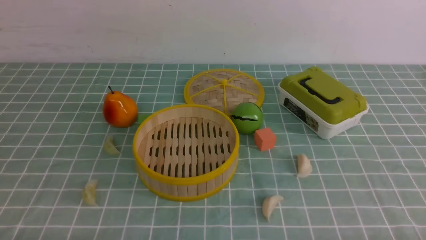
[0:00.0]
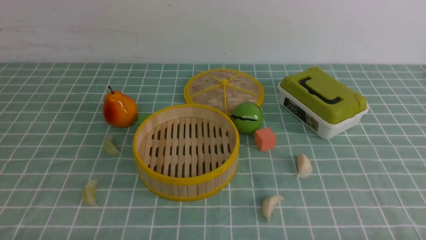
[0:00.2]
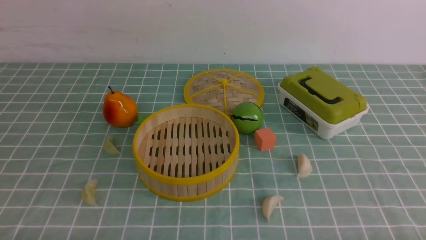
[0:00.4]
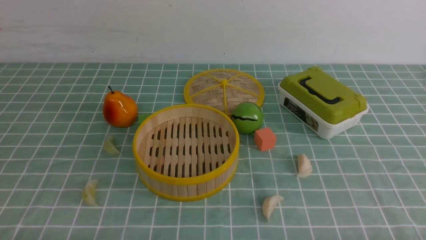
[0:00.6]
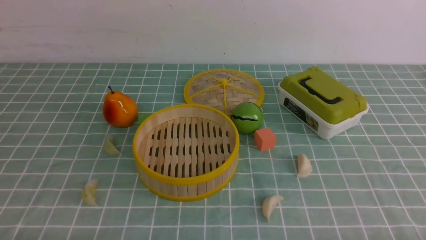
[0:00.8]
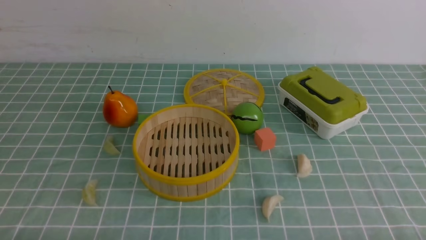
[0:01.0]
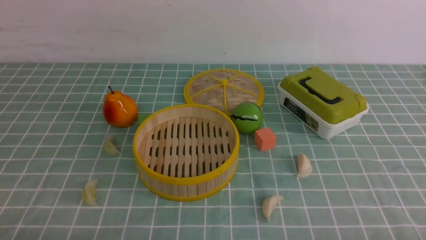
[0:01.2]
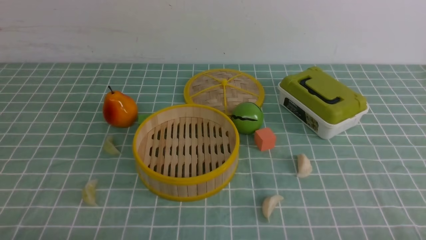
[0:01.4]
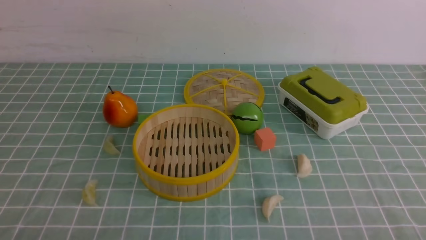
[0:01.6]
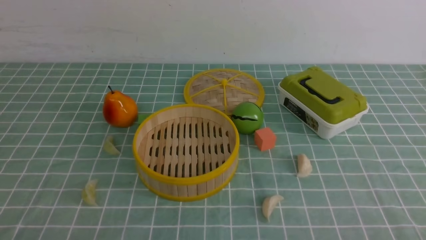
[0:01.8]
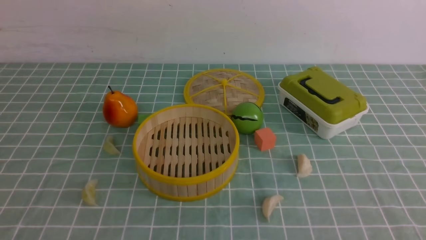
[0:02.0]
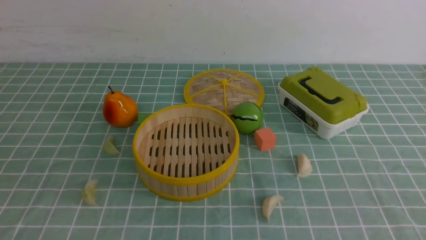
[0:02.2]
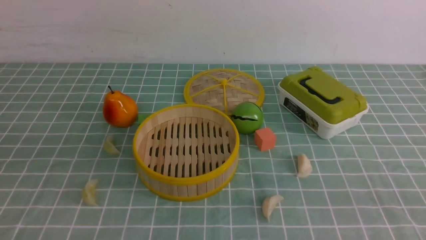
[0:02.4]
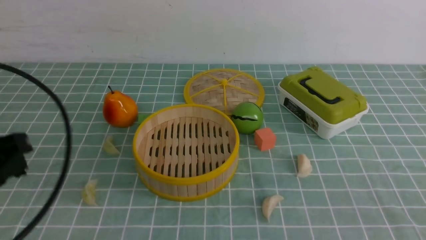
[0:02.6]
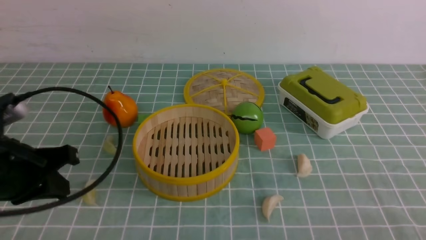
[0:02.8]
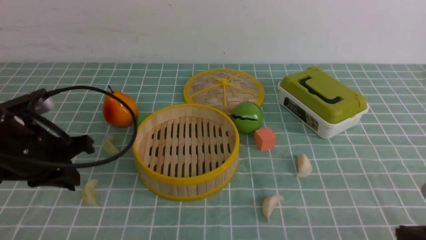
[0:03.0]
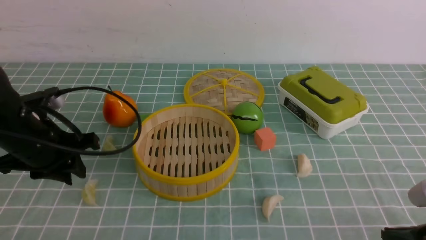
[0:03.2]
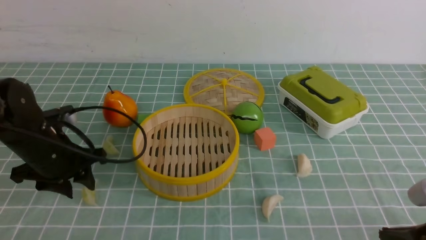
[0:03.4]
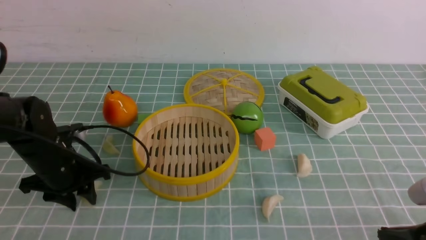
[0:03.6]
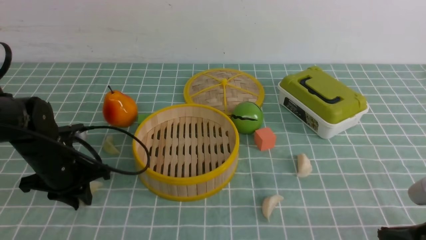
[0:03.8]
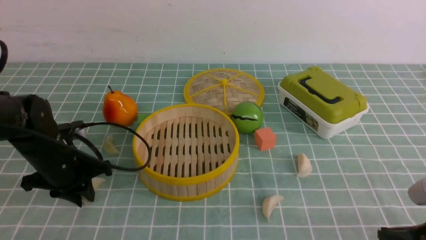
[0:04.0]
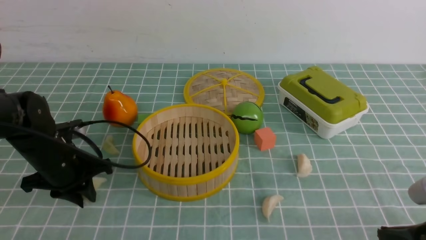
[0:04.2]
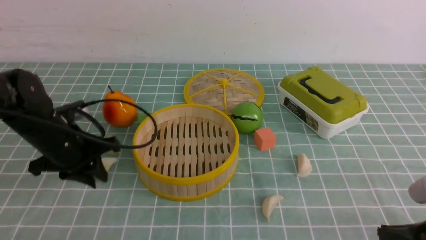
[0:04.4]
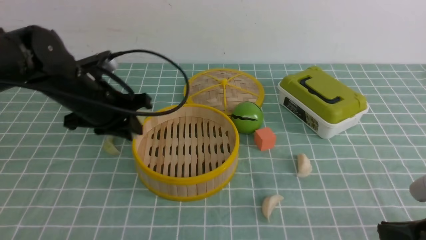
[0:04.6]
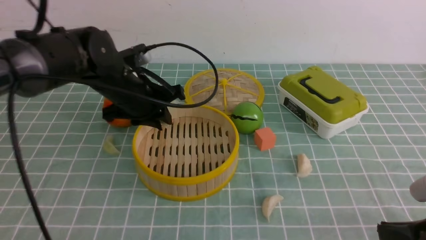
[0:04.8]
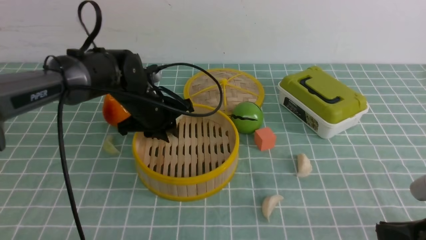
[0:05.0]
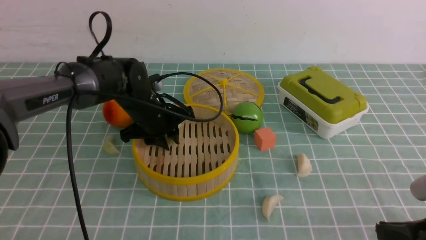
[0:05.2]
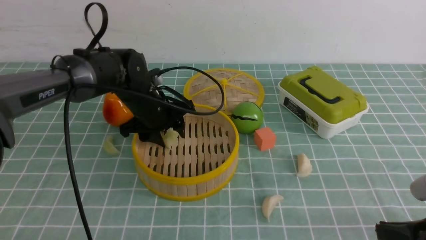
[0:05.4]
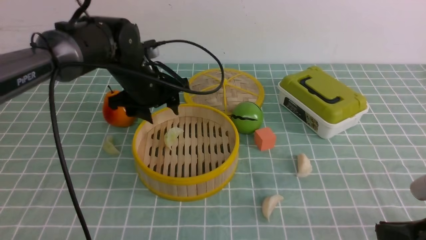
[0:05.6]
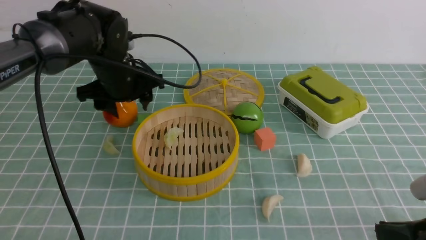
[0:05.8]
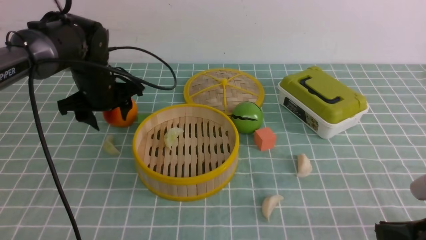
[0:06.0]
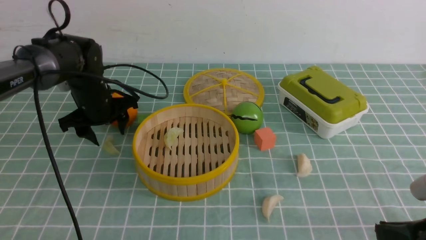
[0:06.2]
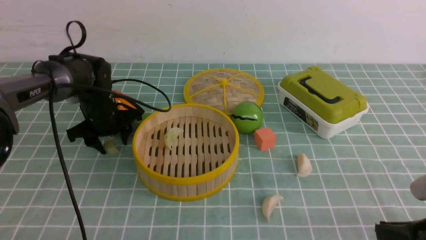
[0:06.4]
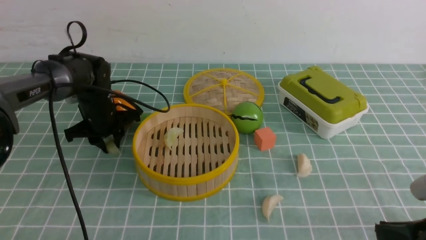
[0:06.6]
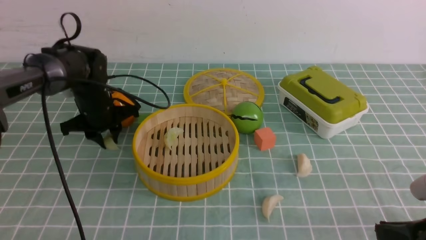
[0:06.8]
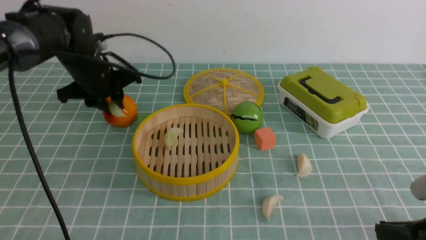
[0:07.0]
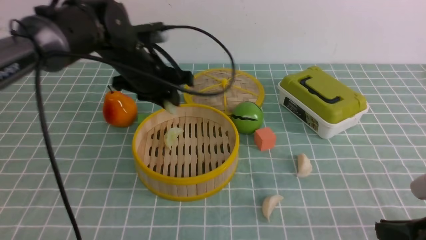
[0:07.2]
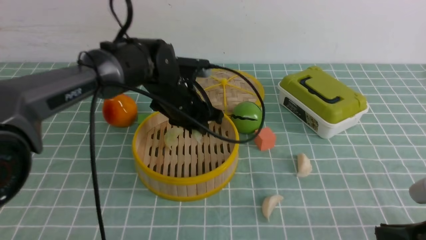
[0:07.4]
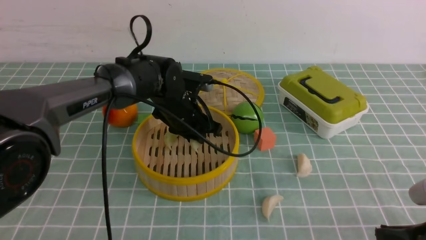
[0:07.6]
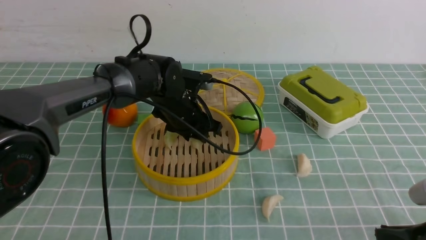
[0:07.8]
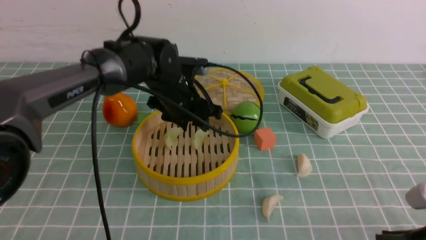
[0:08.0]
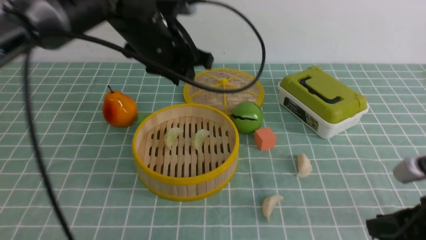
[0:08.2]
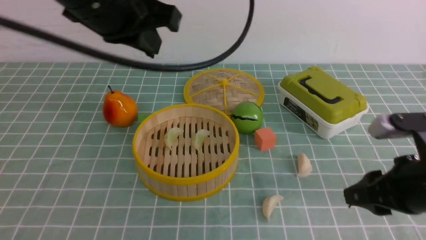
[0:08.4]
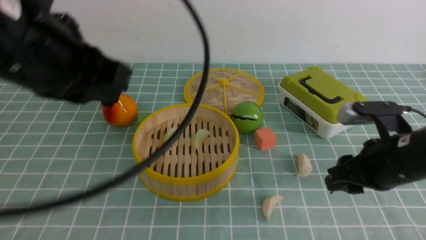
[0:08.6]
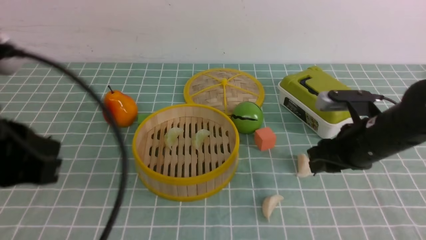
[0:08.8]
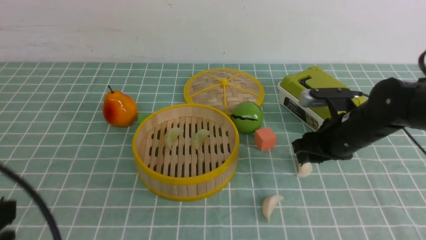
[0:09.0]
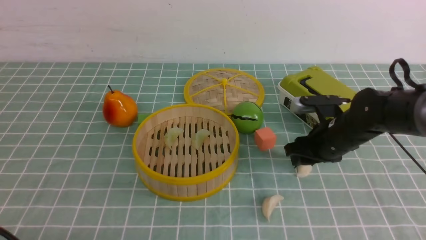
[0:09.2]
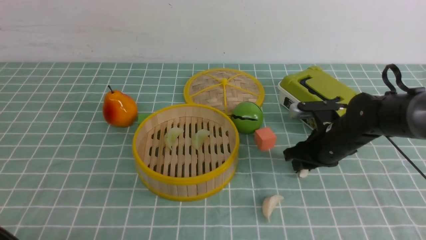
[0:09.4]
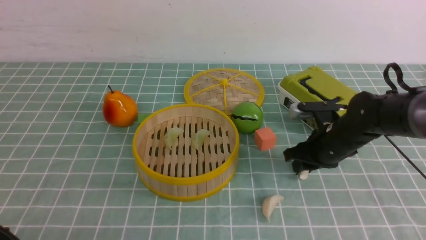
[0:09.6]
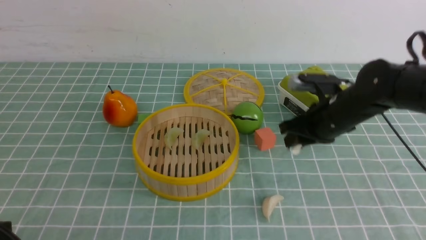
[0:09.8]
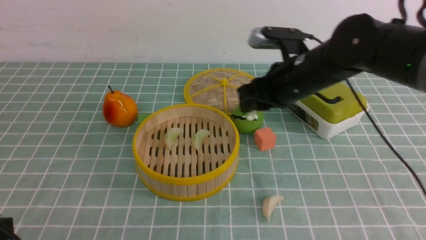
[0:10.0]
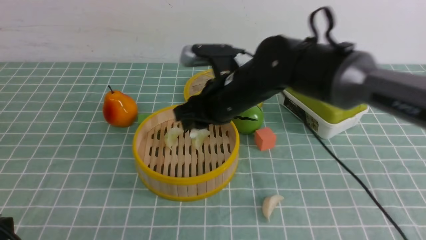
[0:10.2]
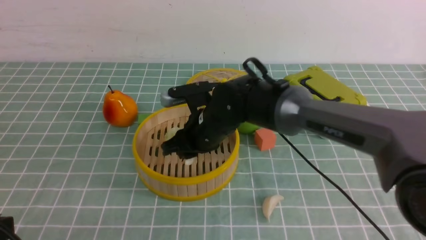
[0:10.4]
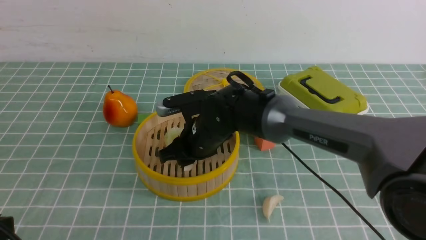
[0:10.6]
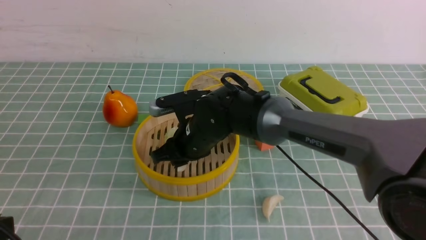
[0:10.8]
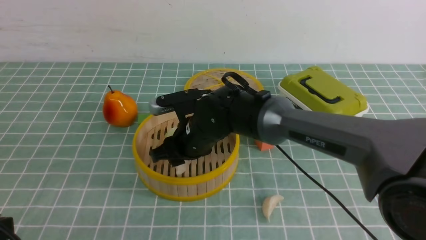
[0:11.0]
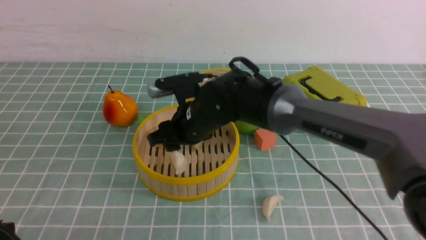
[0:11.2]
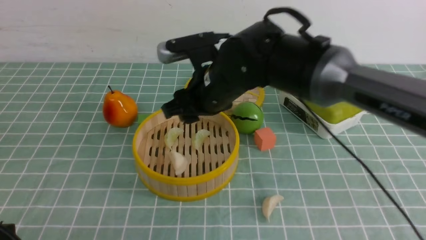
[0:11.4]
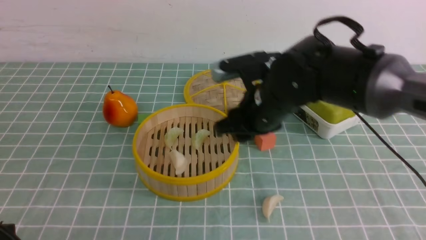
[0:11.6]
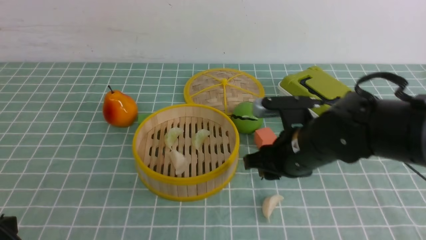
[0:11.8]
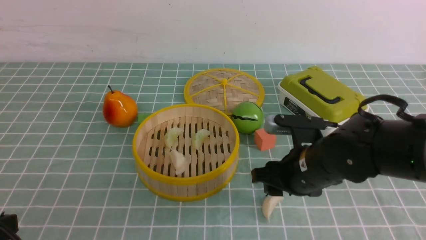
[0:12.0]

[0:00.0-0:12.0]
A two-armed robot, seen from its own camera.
Task of the whole recording: put the dumplings into the steamer on the table with the blue tablecloth.
Step, 0:00.0 to 0:04.2: use the left arm to grab a dumpling.
Step, 0:04.6 to 0:05.6: use the left arm to put the dumpling into the steamer.
Step, 0:05.8 to 0:07.0: use the left arm to grab a dumpling.
Step, 0:07.2 to 0:08.0: use the left arm to put the dumpling into the steamer.
Step, 0:08.4 to 0:09.8: use the right arm to grab a dumpling.
Step, 0:10.2 to 0:11.2: use the right arm to put the dumpling into the steamer.
0:01.6 to 0:03.0: The left gripper shifts some 20 cm forward.
0:03.0 to 0:04.4: The left gripper is displaced forward by some 10 cm.
0:04.4 to 0:06.0: The left gripper goes about 10 cm forward, goes to the right and returns, roughly 10 cm each way, and opens up.
0:06.0 to 0:07.6: The left gripper is displaced to the right by about 15 cm, and closes.
0:07.6 to 0:09.0: The left gripper shifts roughly 40 cm backward and to the left, and closes its fingers. Meanwhile the right gripper moves forward, approximately 20 cm, and opens its fingers.
0:09.0 to 0:10.4: The right gripper goes about 20 cm to the left.
0:10.4 to 0:12.0: The right gripper heads to the right and backward, covering approximately 15 cm.

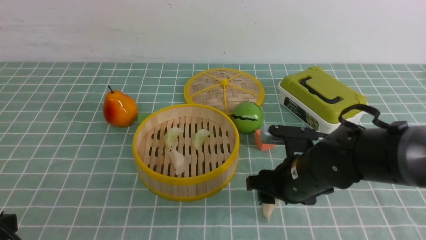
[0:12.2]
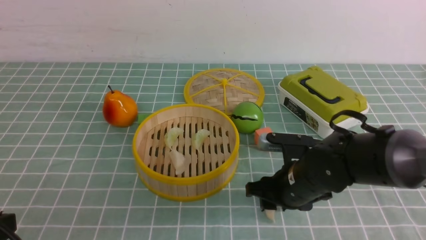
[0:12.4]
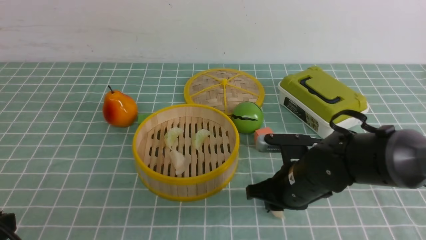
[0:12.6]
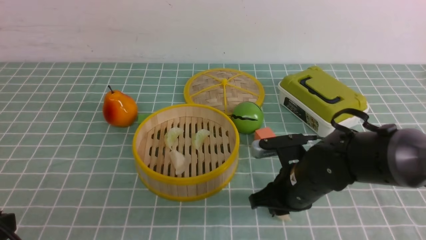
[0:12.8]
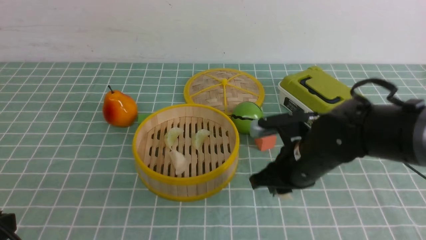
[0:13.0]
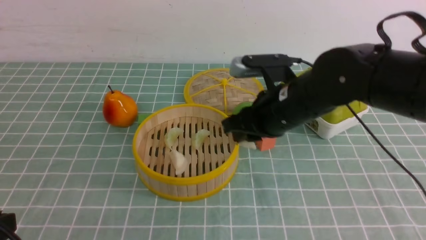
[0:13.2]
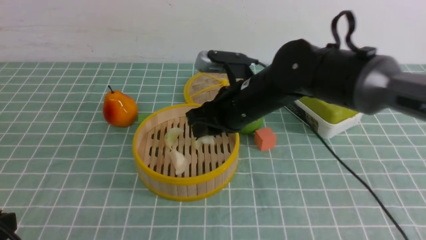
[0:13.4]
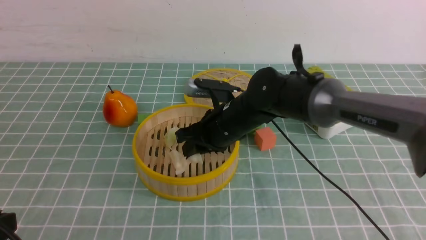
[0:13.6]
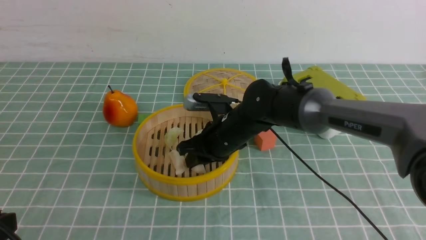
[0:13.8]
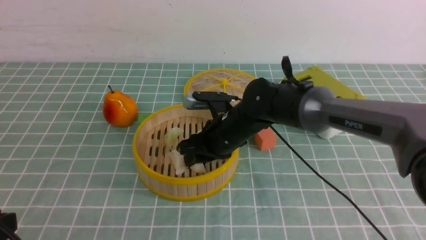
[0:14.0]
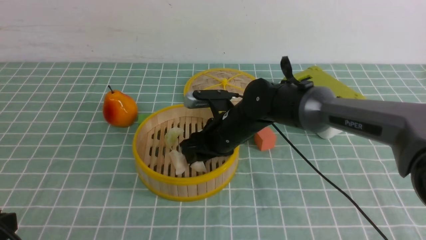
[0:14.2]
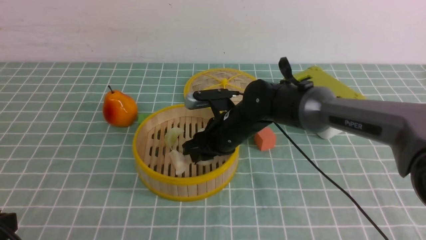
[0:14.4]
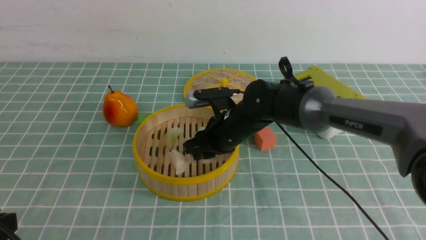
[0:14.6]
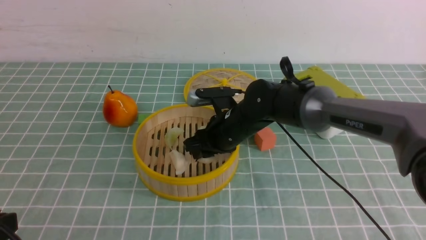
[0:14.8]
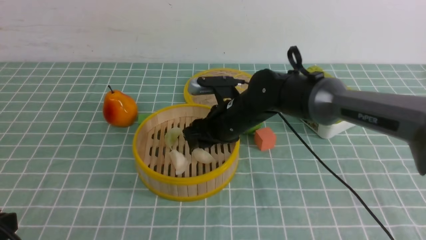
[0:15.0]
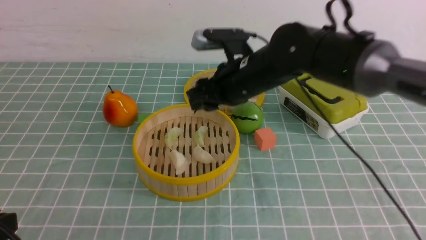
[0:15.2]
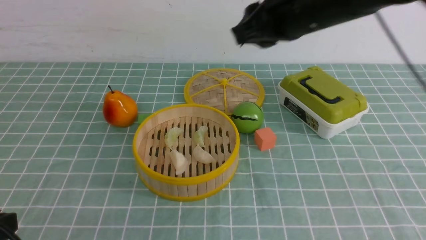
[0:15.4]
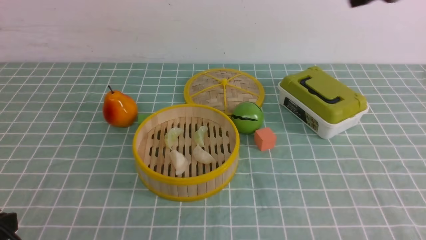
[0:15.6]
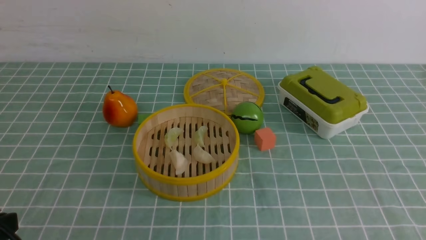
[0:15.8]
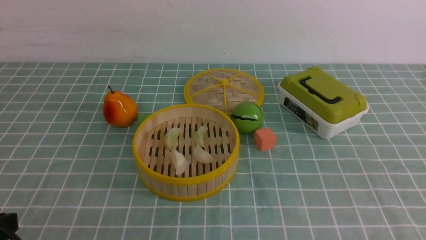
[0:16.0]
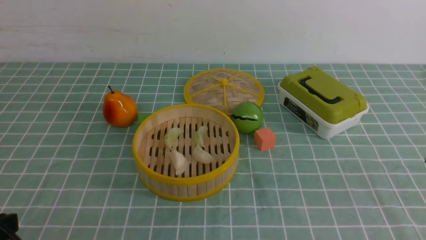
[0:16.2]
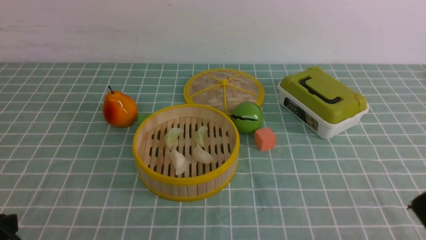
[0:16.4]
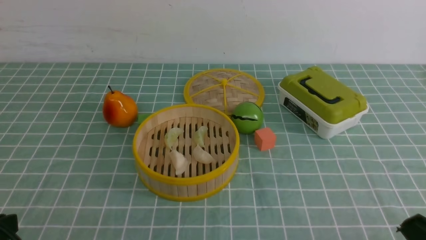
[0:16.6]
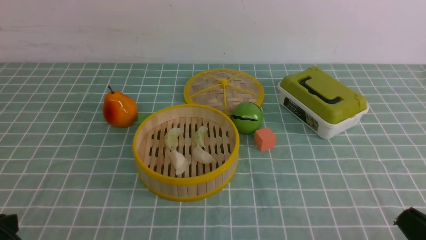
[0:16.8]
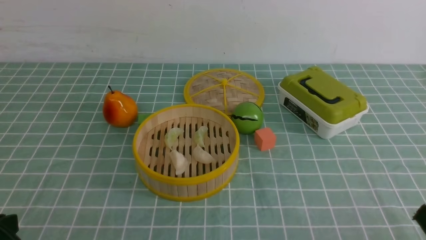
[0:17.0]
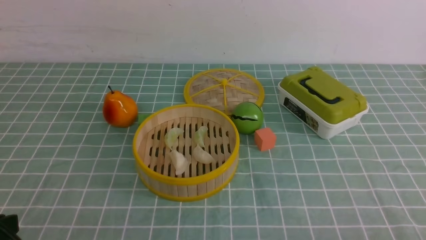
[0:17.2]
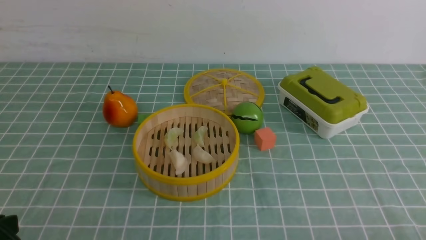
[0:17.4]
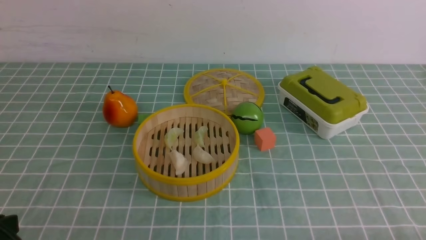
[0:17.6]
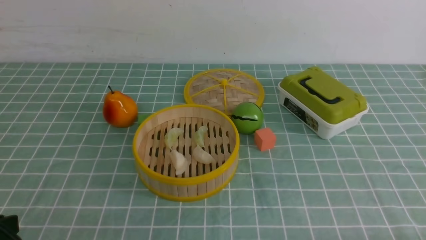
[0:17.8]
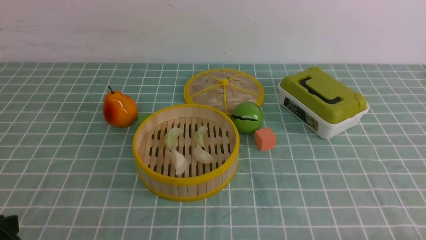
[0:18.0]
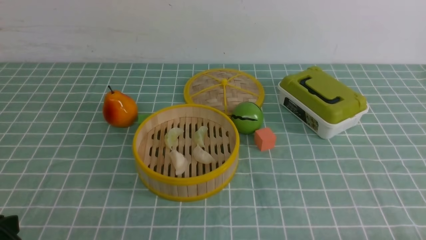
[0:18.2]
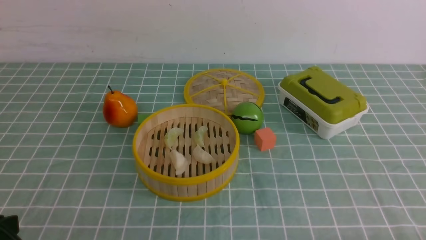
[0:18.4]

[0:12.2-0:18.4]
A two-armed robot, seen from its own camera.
Task of the whole recording: put the dumplings into the steamer on the table with the blue tablecloth.
Step, 0:12.2 to 0:13.2: use the right arm to grab a dumpling.
Step, 0:13.4 to 0:15.0: use the right arm to put the dumpling into the steamer.
0:12.2 to 0:13.8: The right gripper shifts roughly 15 cm to the left and forward, goes upward and returns, some 10 cm each way, and closes its fingers.
0:13.8 to 0:15.4: The right gripper heads upward, covering about 25 cm.
0:15.4 to 0:16.8: The right gripper goes about 35 cm backward, downward and to the right, and closes.
0:16.8 to 0:18.4: The right gripper shifts some 5 cm downward.
